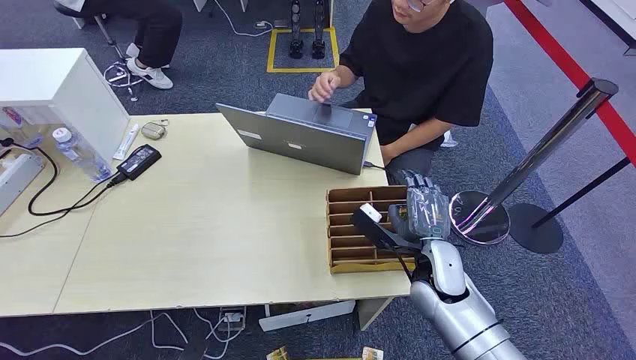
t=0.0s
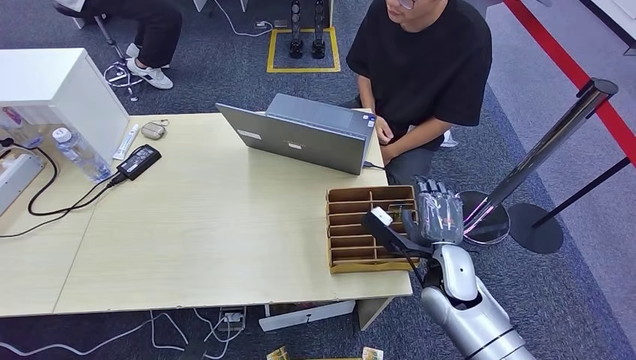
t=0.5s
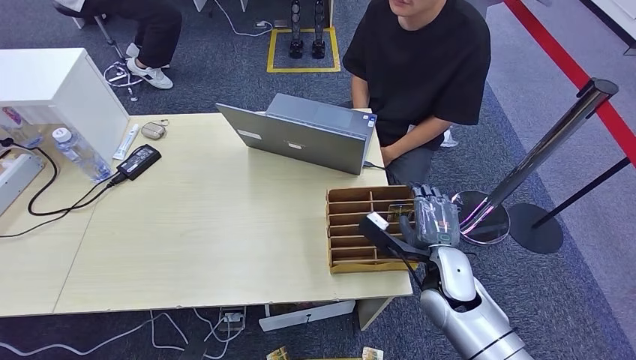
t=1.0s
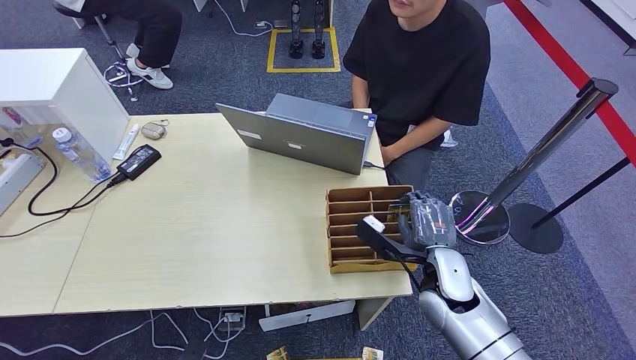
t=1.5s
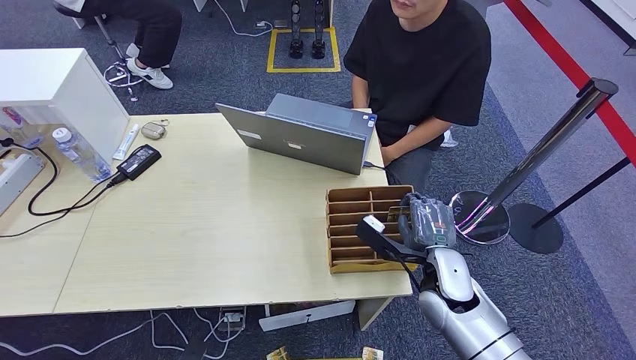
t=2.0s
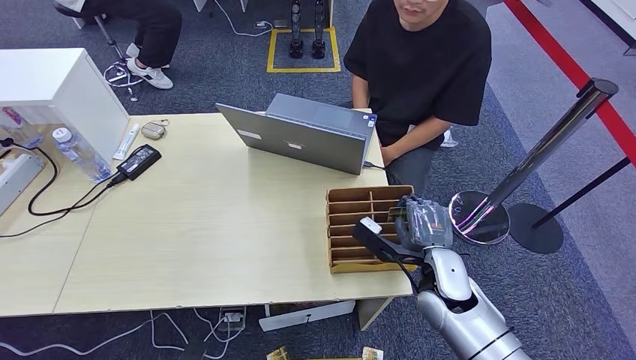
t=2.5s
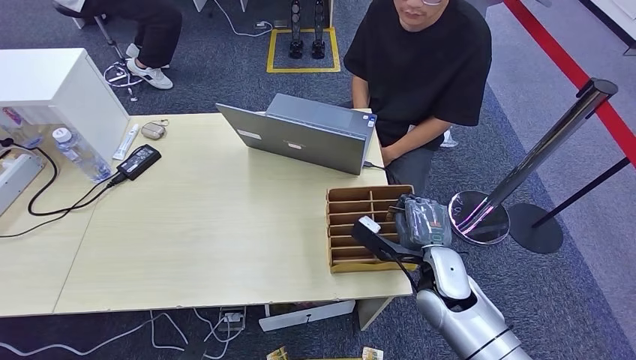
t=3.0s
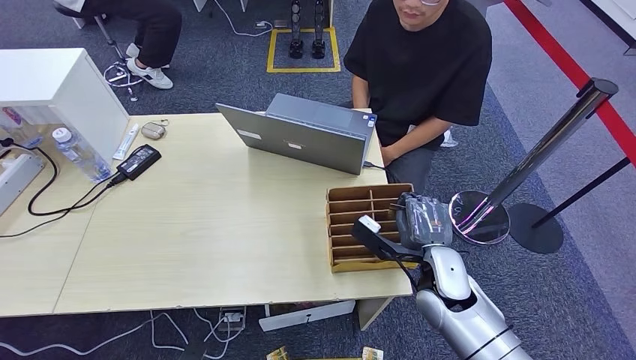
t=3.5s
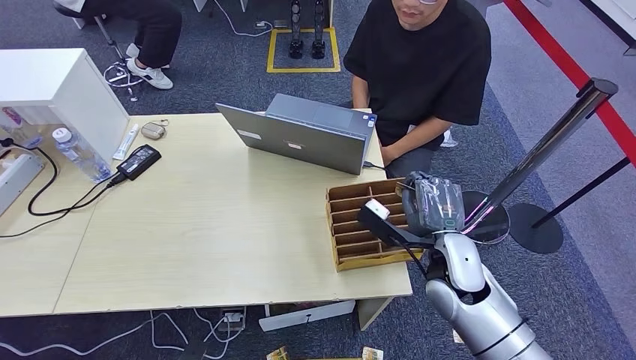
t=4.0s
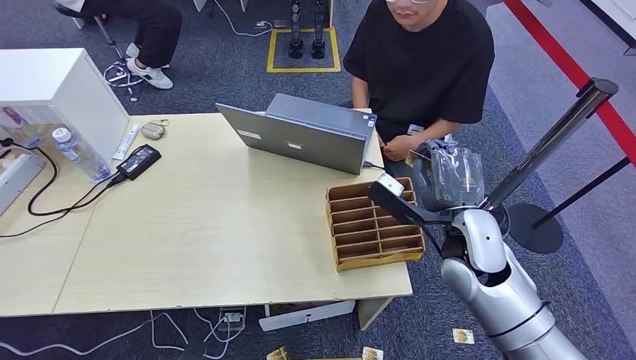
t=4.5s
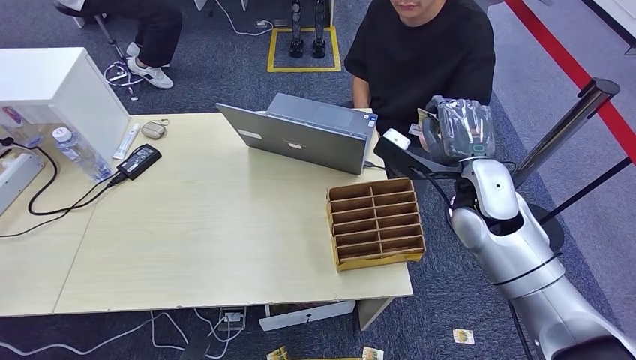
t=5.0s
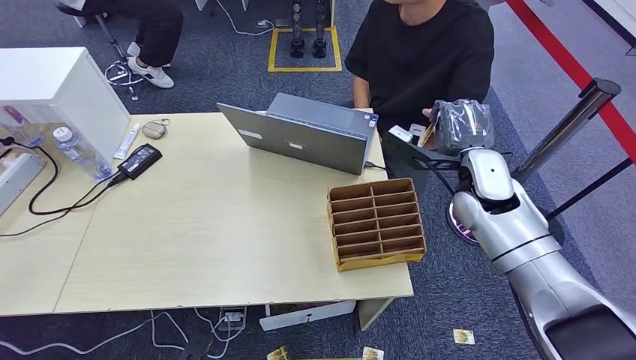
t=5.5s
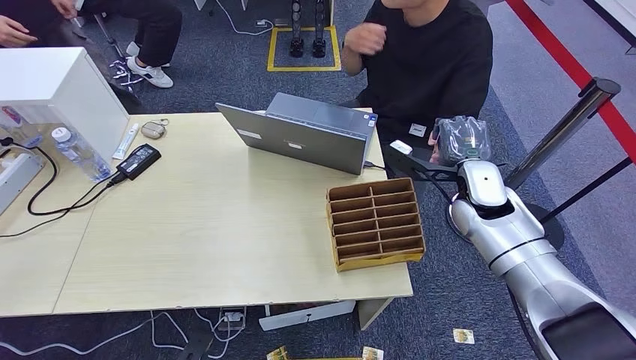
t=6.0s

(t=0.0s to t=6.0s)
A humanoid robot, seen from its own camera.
Step, t=0.0s - t=4.5s: Pick up the room card from the card holder.
Step, t=5.0s - t=6.0s: Hand the room card to the target.
t=2.0s - t=4.0s: The right hand is displaced upward by roughly 10 cm.
t=4.0s - t=6.0s: The right hand moves forward and to the right, approximately 15 cm.
